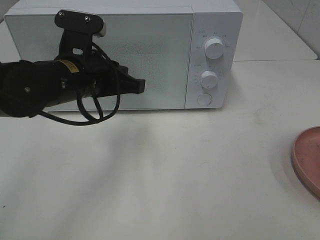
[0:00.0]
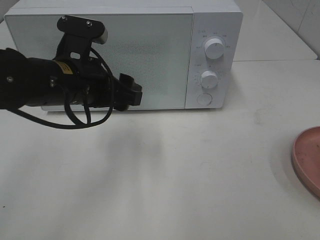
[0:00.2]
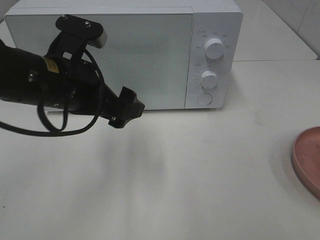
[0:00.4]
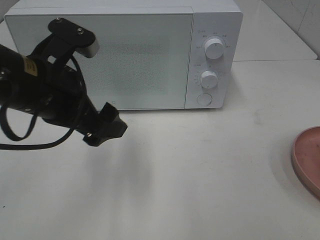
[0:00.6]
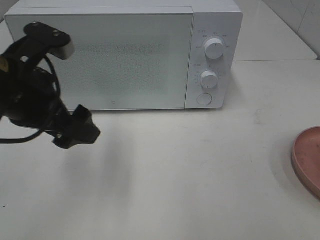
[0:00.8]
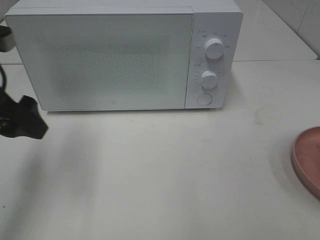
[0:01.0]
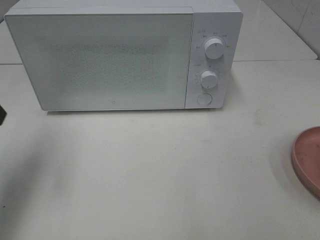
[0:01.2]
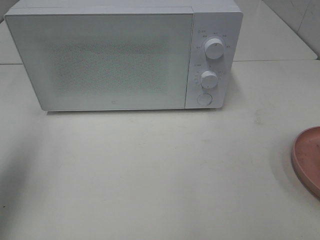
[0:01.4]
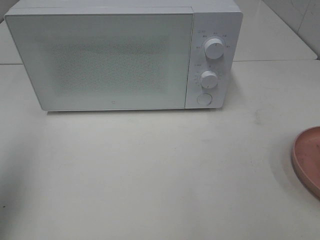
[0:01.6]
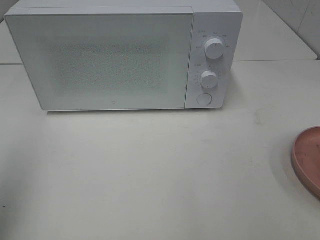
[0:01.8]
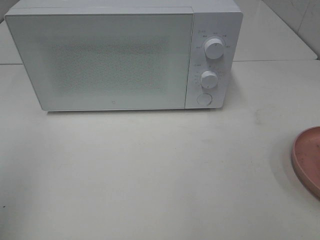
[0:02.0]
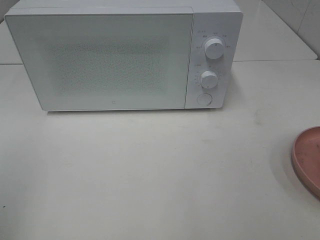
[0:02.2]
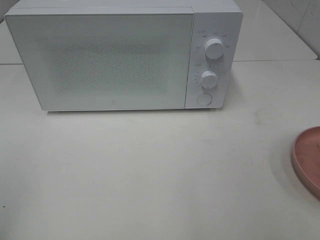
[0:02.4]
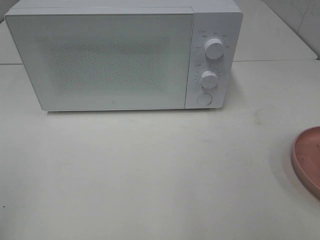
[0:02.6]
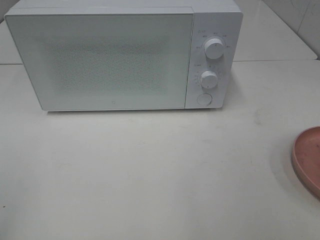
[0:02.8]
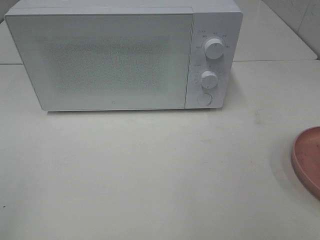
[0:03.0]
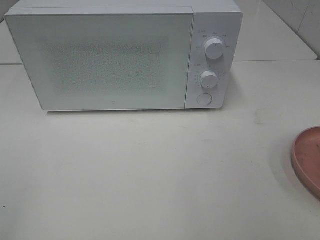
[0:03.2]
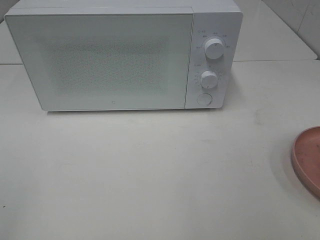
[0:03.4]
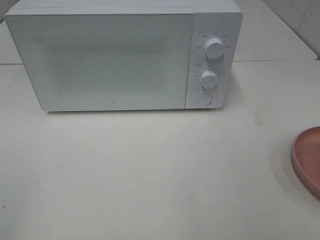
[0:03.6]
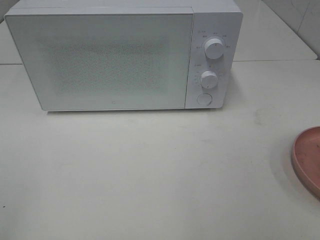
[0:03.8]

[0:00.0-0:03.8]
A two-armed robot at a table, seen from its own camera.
Task of the whole recording: Heat the burger.
0:00.0 to 0:01.2: The left gripper travels to the left and upward by roughly 20 cm, and opens its fingers.
0:01.2 to 0:02.6: The left gripper moves backward, roughly 20 cm.

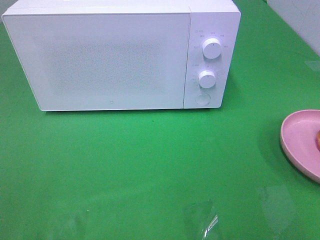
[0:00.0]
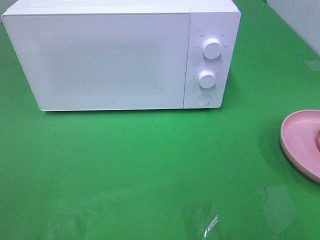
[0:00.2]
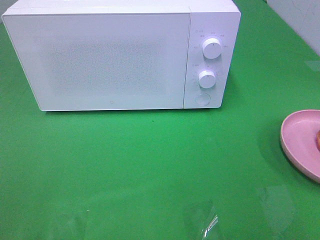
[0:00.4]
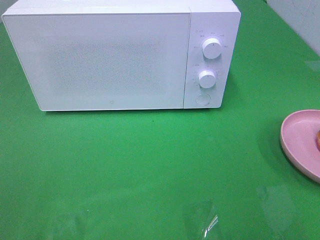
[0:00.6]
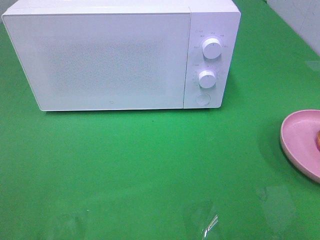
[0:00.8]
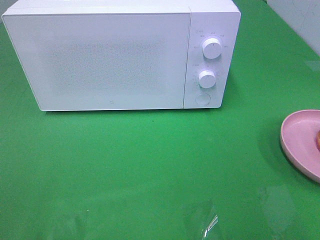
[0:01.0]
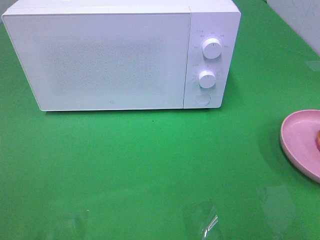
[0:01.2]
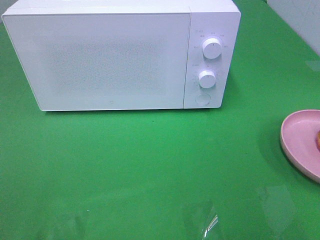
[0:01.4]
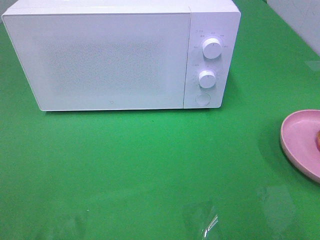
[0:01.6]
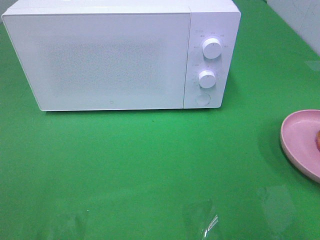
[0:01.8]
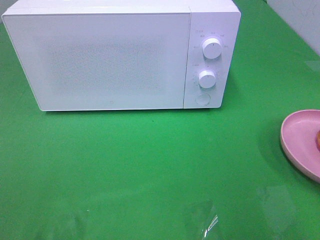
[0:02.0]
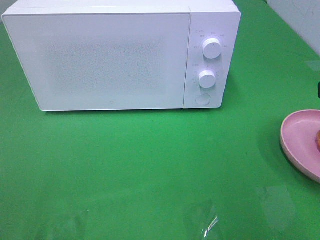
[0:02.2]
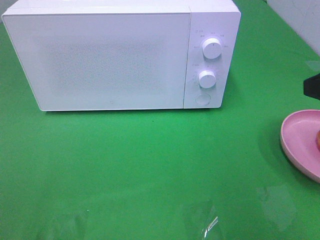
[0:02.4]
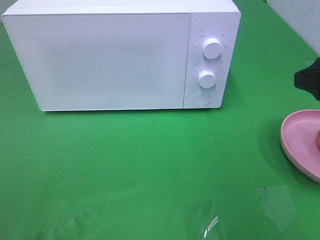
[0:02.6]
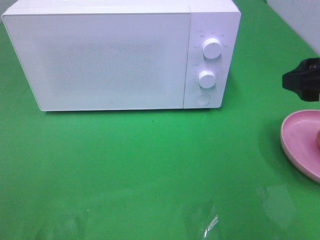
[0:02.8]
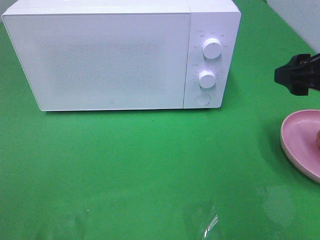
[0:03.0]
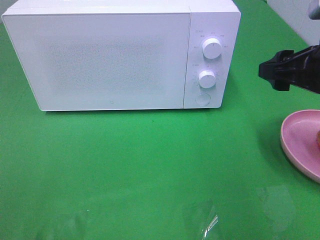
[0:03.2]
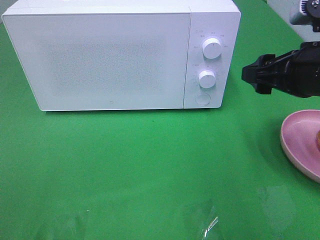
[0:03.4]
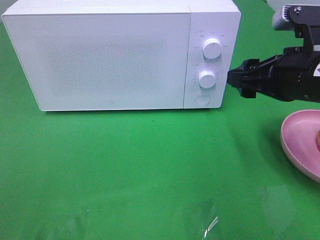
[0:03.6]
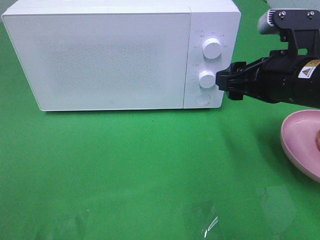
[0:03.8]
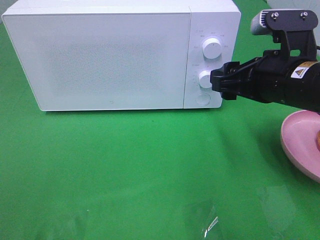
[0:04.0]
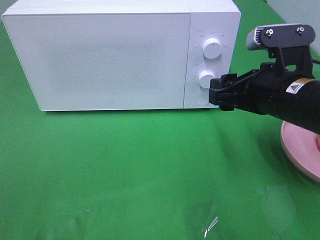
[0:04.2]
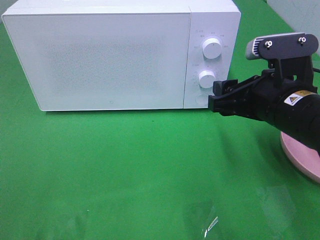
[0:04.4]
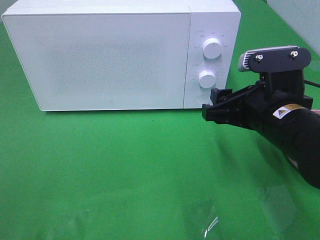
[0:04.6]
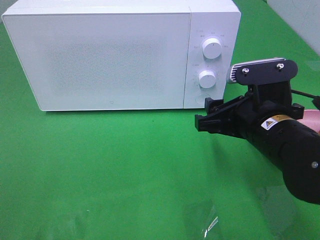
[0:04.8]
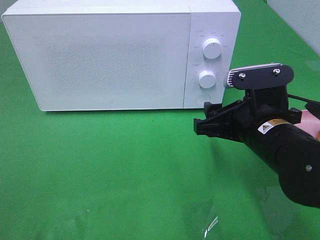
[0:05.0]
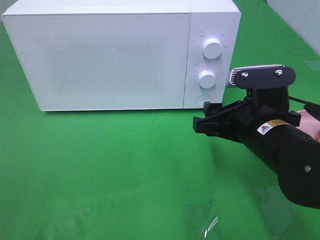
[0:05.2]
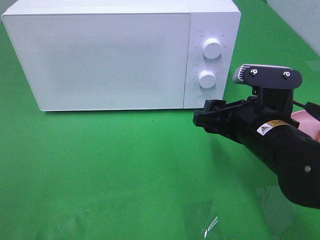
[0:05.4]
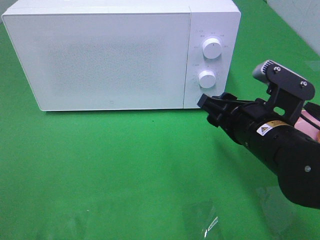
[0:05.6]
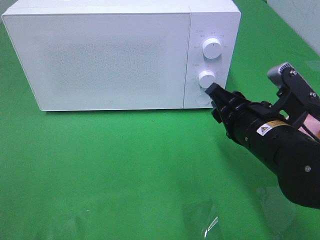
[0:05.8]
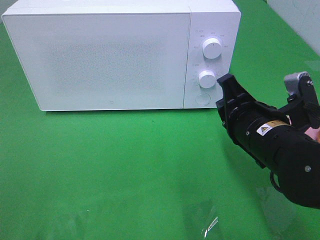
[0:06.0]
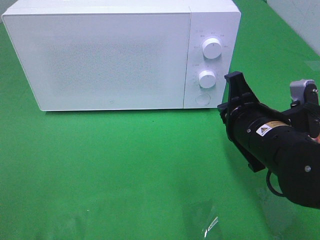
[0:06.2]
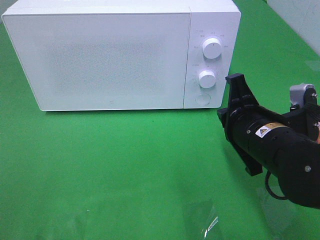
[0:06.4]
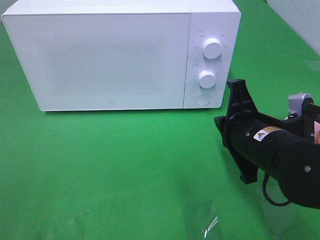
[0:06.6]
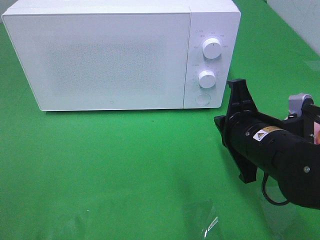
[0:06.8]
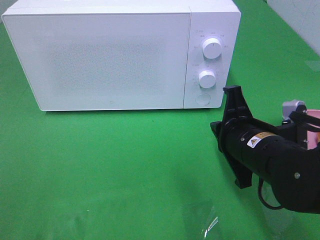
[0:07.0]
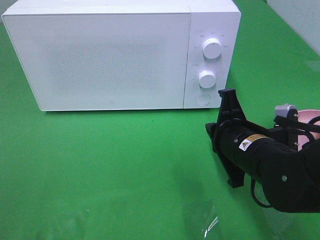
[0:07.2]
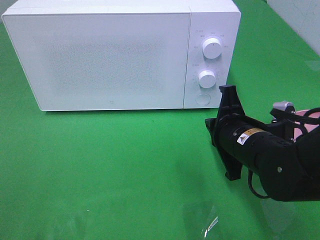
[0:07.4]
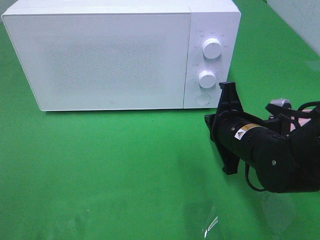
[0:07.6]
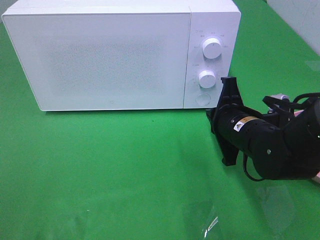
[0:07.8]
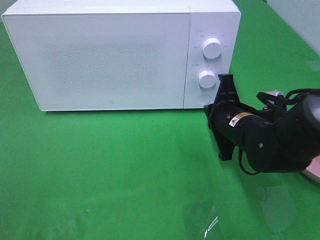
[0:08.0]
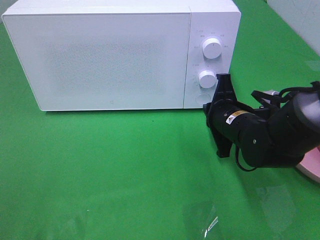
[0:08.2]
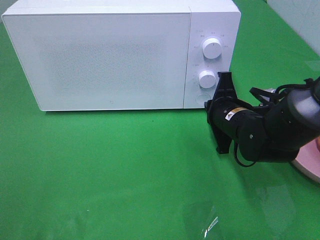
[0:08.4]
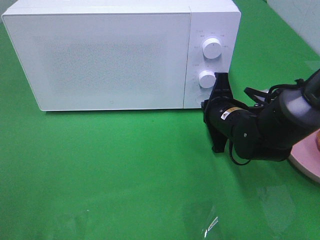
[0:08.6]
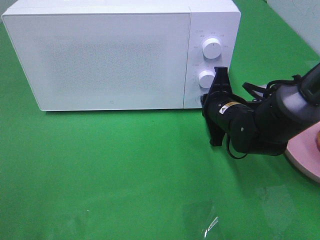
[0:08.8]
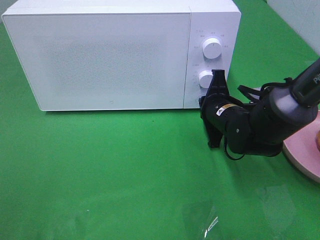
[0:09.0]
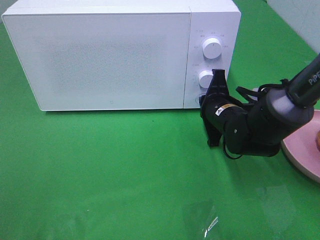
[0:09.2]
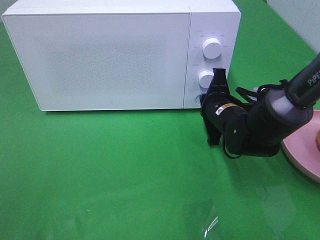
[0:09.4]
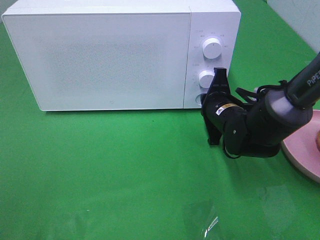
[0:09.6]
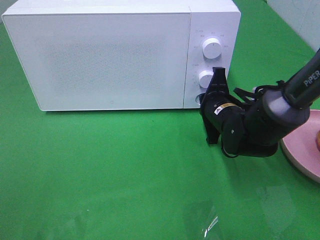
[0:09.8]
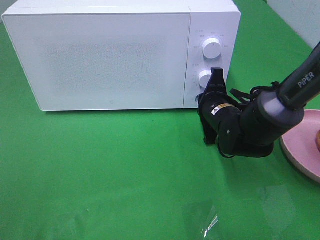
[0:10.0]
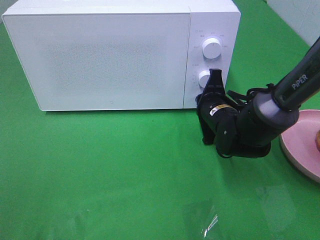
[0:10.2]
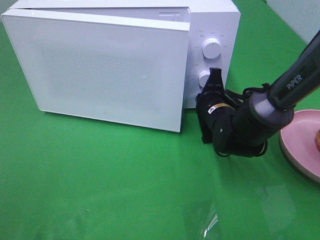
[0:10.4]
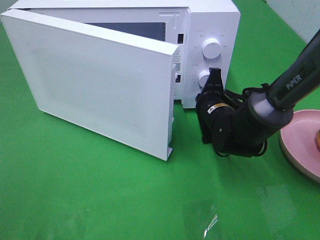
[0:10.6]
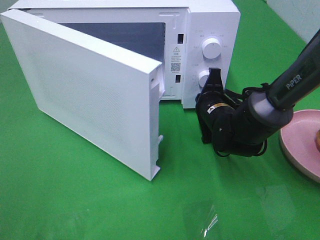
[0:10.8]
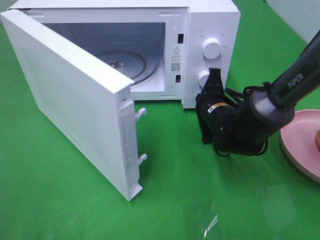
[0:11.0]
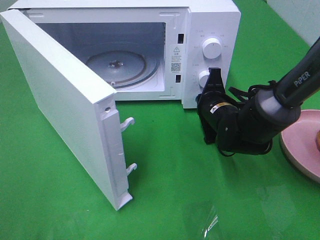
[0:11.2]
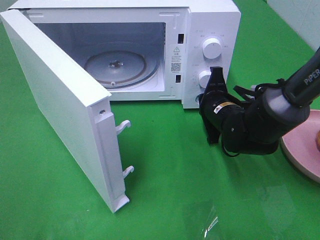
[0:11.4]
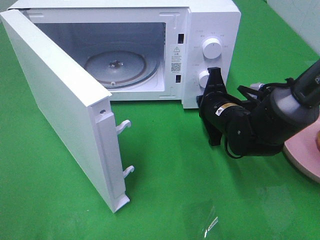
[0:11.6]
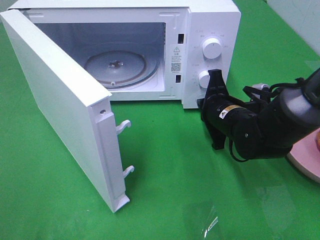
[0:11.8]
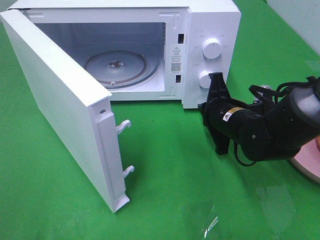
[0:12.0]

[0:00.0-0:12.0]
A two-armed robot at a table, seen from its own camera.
Task of the whole recording: Heat the burger.
Step, 0:00.0 to 0:11.8: Right hand: press the switch.
0:01.6 to 0:03.0: The right gripper travels forward by about 15 cm.
0:03.0 to 0:04.4: The right gripper is displaced to the left and downward by roughly 10 cm.
0:04.4 to 0:06.0: The right gripper closes.
0:06.0 to 0:07.6: The right gripper changes place by approximately 5 cm.
0:07.6 to 0:09.0: The right gripper moves forward, about 10 cm.
0:09.0 to 0:10.4: The grippers make only small movements.

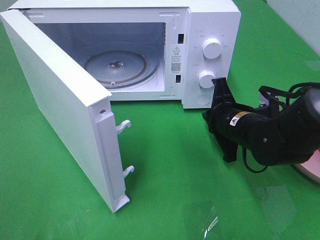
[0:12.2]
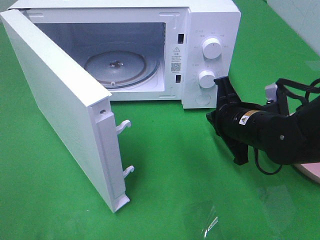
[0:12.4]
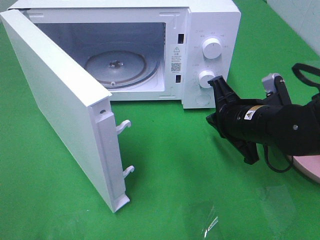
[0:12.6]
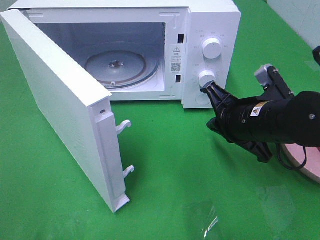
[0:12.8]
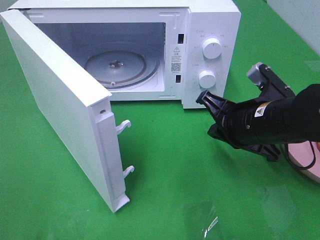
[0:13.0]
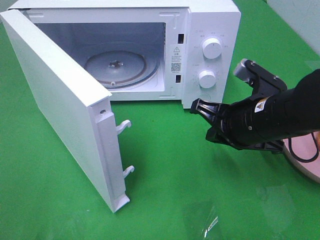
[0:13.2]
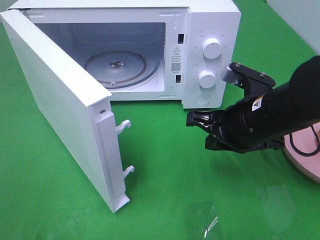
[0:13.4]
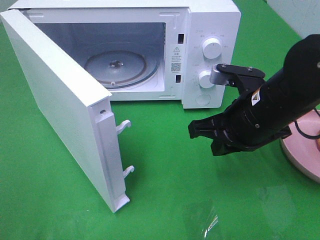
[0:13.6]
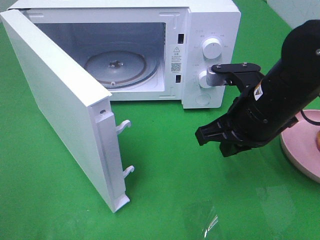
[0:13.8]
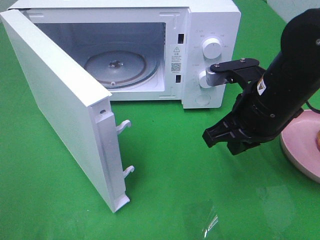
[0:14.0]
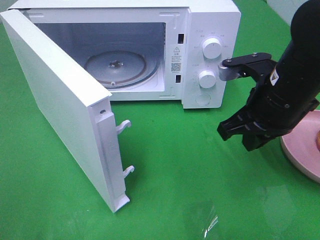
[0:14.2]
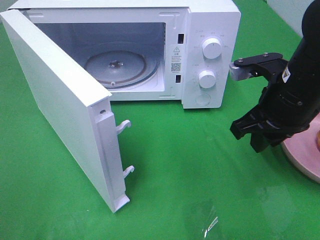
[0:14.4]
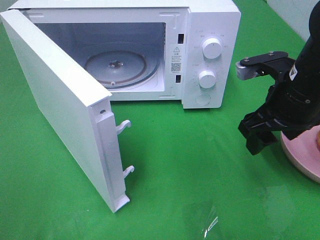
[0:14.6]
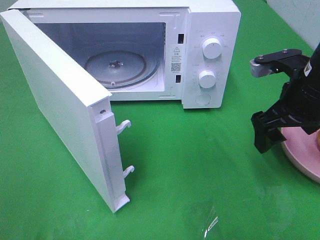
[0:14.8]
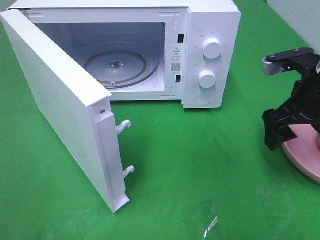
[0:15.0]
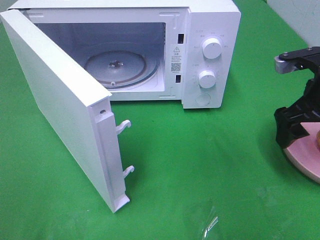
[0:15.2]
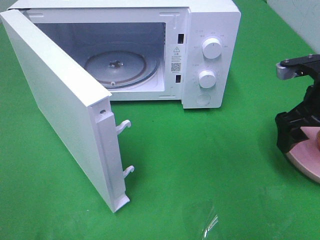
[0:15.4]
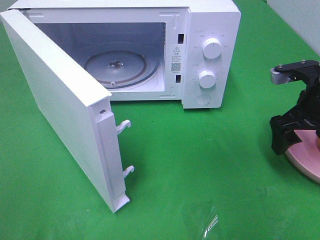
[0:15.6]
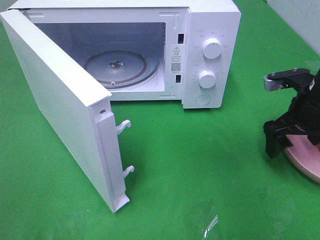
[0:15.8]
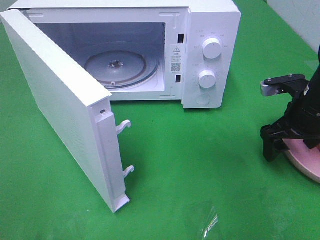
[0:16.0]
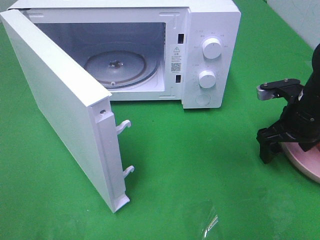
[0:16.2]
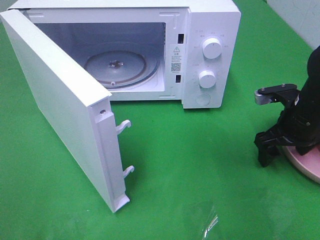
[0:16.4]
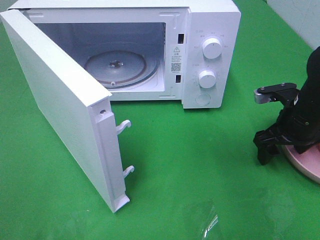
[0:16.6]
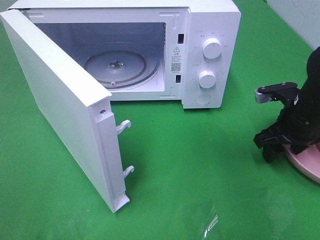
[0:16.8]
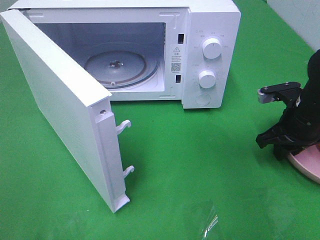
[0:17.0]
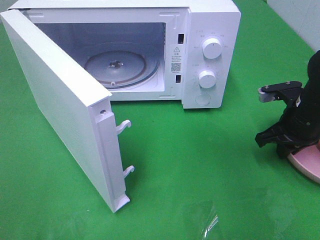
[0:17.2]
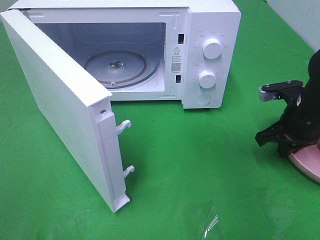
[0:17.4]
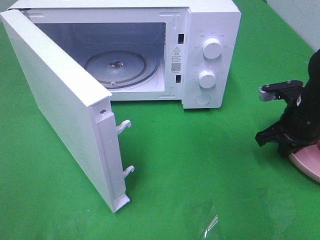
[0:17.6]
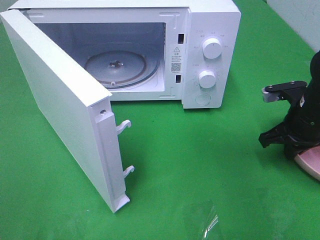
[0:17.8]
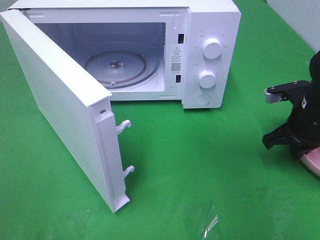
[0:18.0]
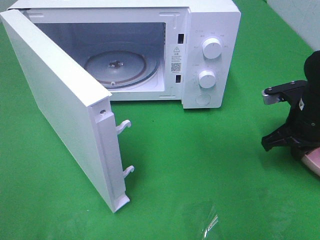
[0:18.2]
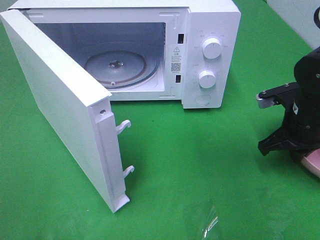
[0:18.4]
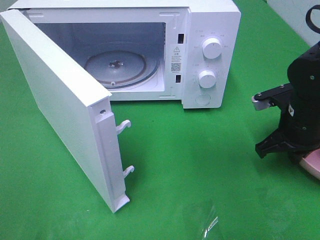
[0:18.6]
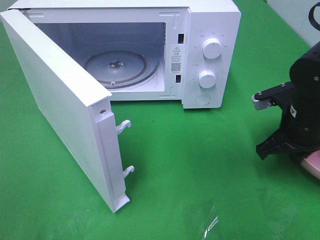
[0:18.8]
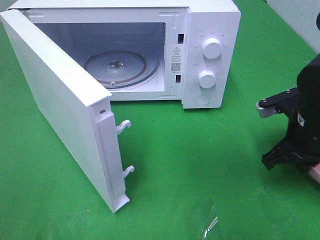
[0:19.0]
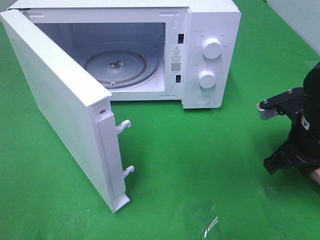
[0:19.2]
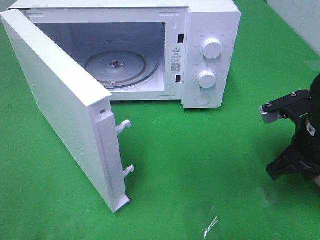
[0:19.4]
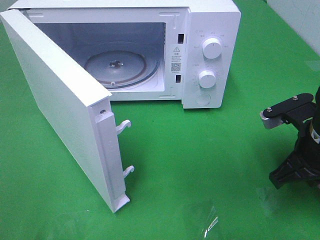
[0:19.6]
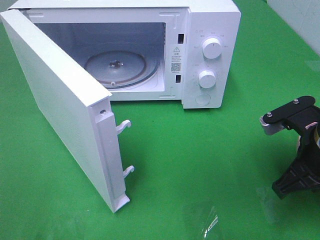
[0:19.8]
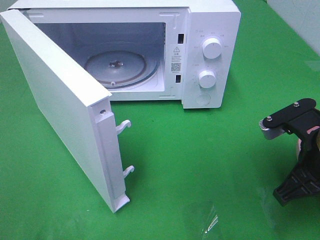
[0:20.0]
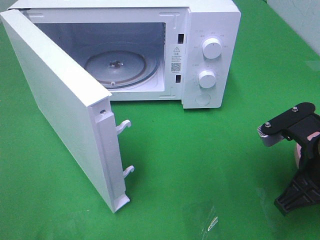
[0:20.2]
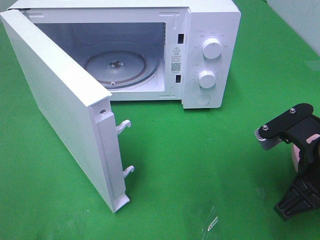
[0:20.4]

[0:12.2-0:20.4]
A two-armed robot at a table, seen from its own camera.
Task of the whole recording: Heat the burger.
Step, 0:12.2 to 0:18.0: Right hand: grab the plate with the hamburger.
0:12.2 to 0:13.8: The right gripper travels upward by roughly 10 cm.
0:13.8 to 0:15.4: The right gripper goes some 10 cm to the right, and opens.
0:15.4 to 0:17.2: The right gripper moves downward, some 10 cm, and closes up.
0:17.2 to 0:18.8: The grippers make only small movements.
0:18.8 to 0:20.4: The right gripper goes approximately 10 cm backward.
